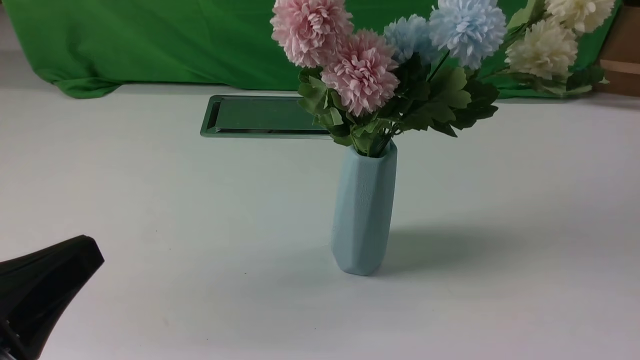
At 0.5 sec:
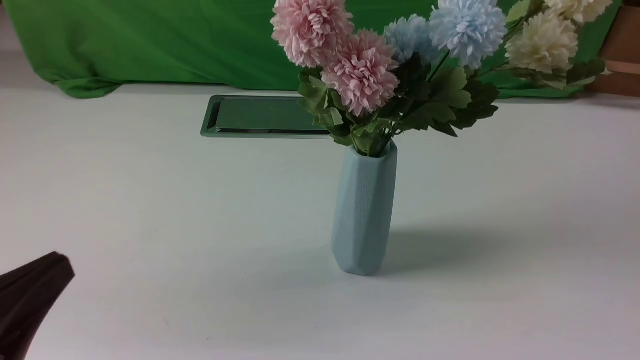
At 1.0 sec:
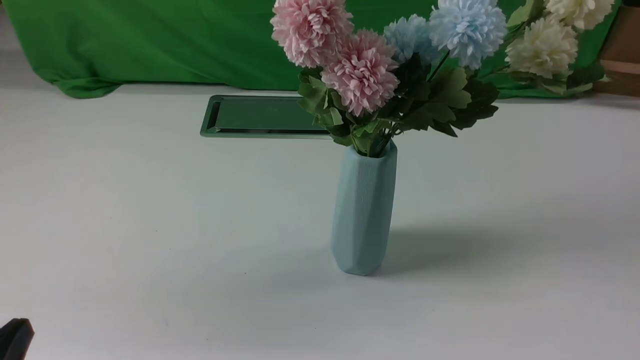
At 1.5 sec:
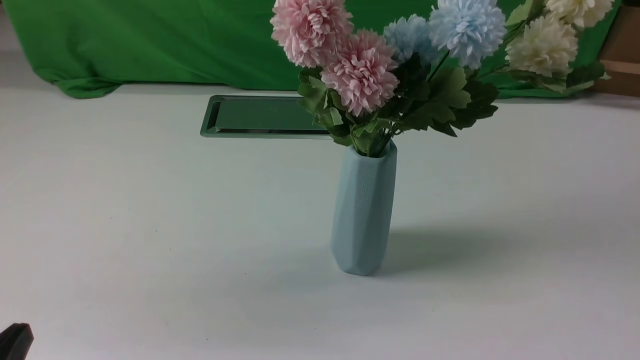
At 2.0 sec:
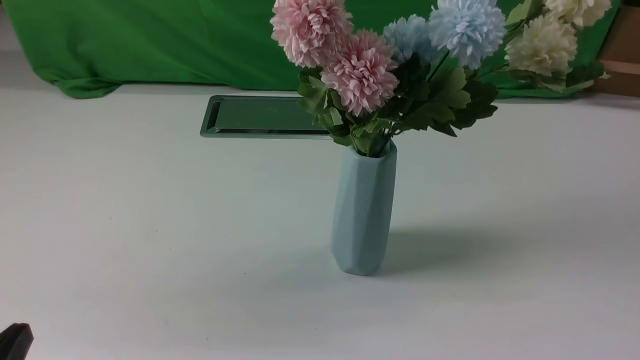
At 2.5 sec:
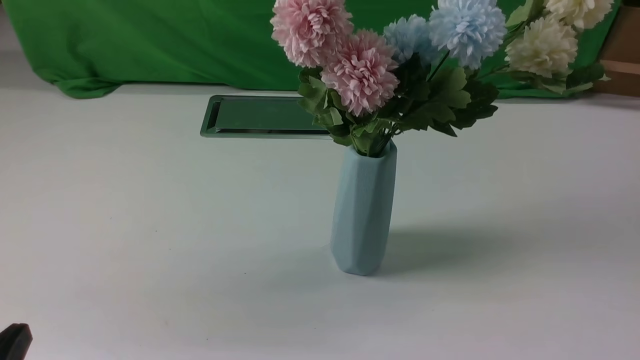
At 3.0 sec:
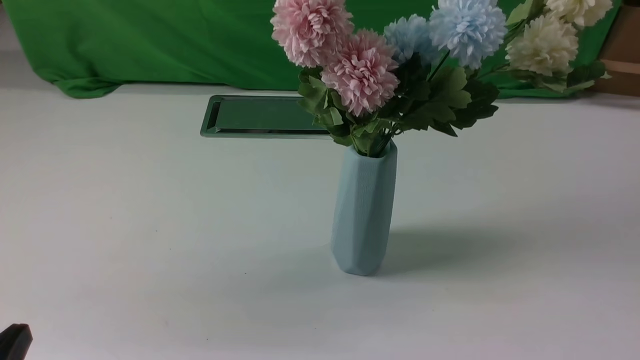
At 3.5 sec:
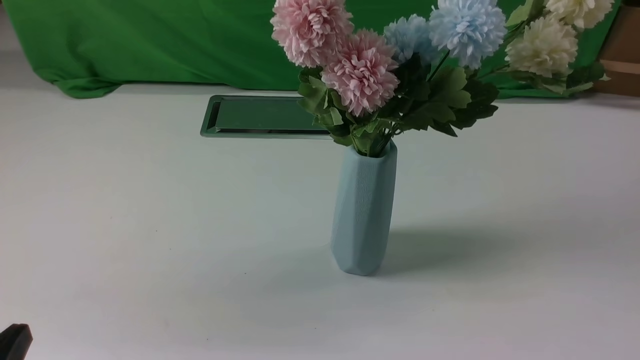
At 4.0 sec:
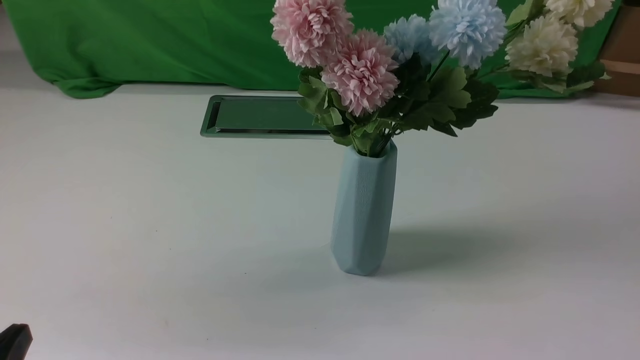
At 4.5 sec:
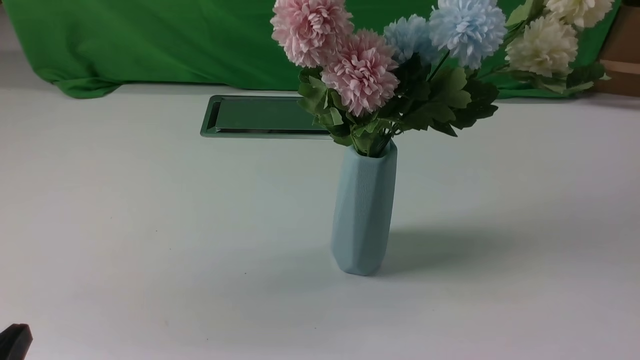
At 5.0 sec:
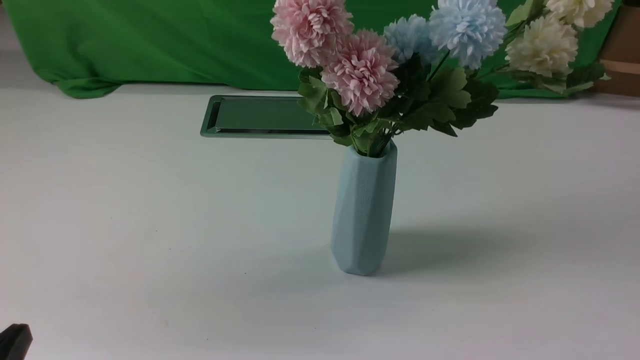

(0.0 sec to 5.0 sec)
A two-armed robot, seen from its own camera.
Task of the whole recording: insert the flowers into the vase on the white table.
0.0 sec - 2.5 sec: The left gripper goes some 10 cm downward.

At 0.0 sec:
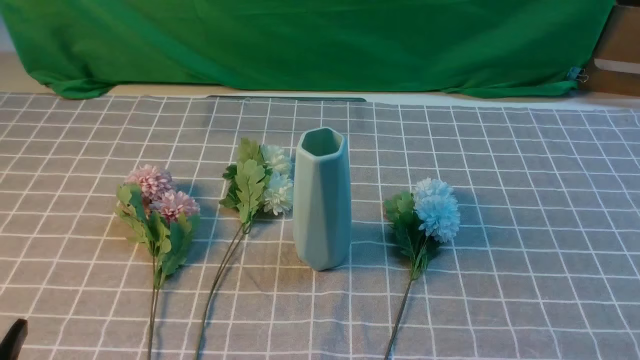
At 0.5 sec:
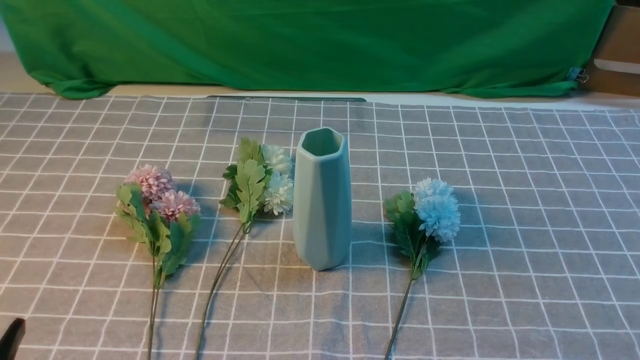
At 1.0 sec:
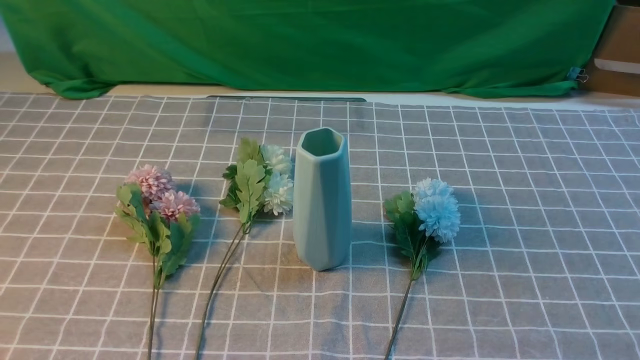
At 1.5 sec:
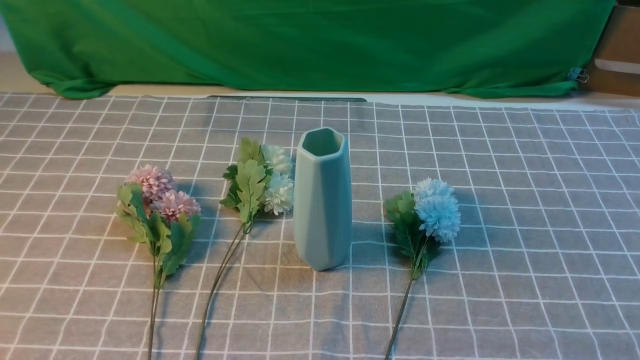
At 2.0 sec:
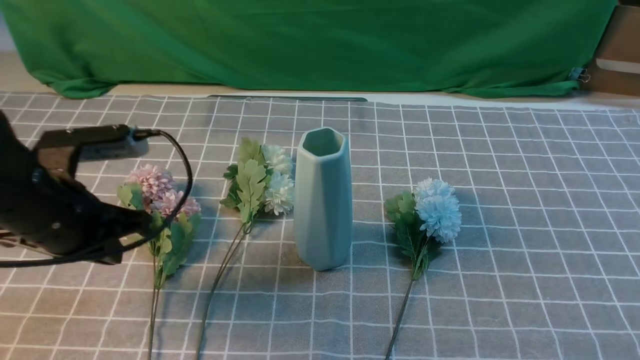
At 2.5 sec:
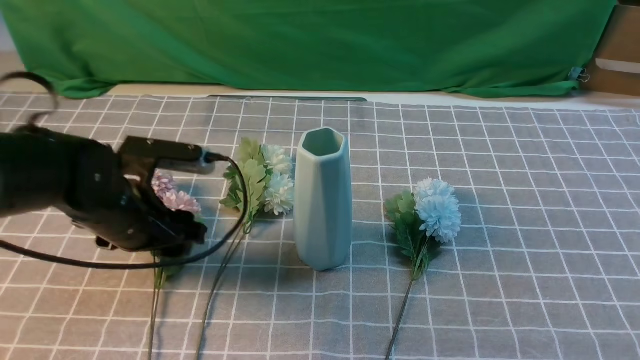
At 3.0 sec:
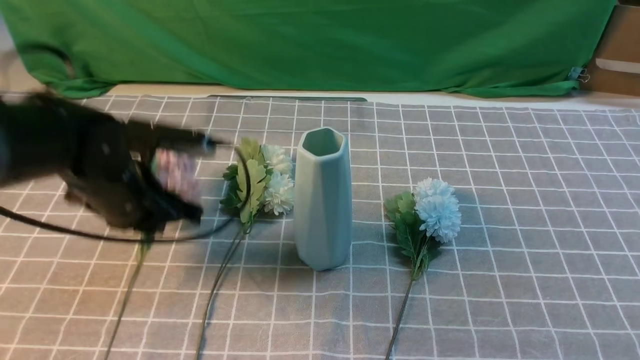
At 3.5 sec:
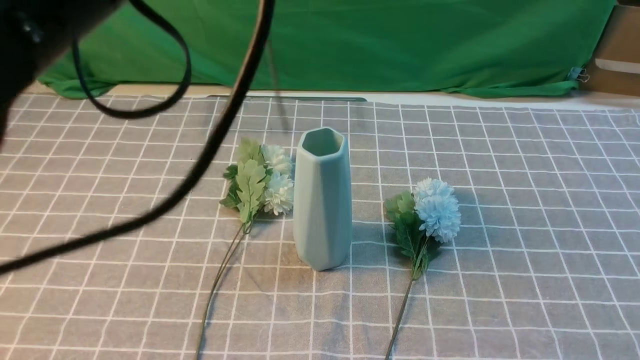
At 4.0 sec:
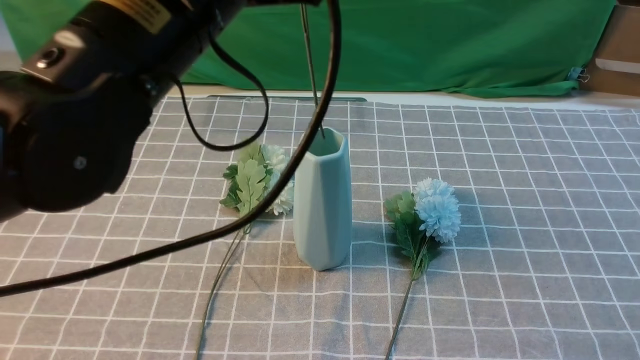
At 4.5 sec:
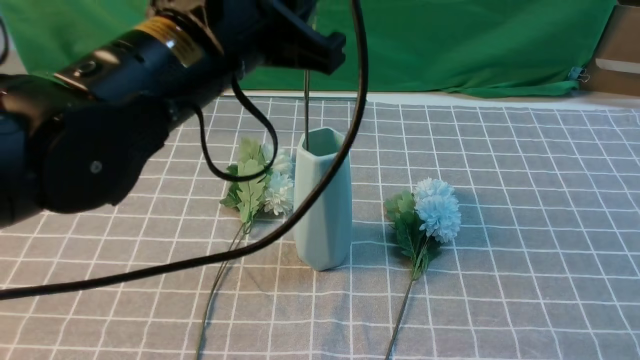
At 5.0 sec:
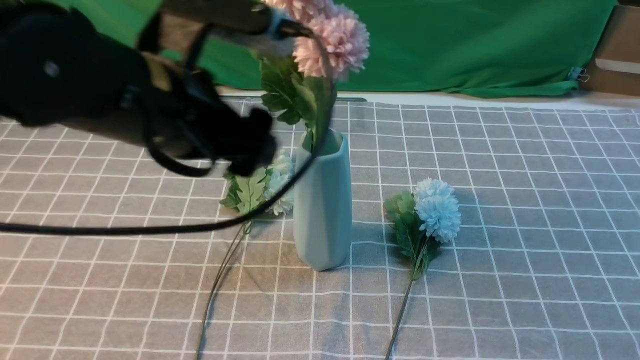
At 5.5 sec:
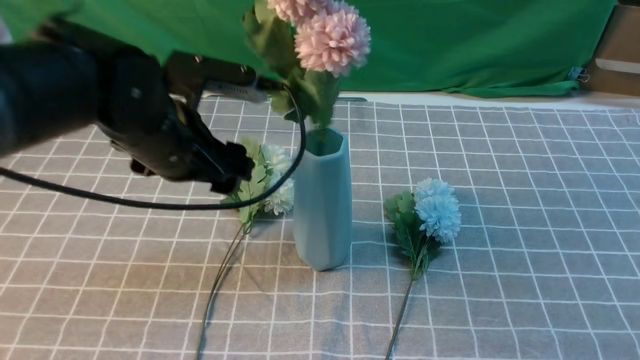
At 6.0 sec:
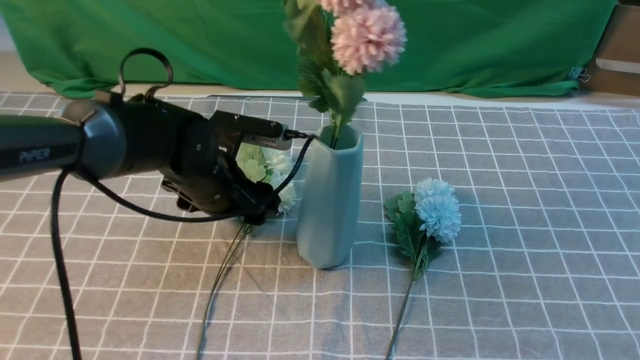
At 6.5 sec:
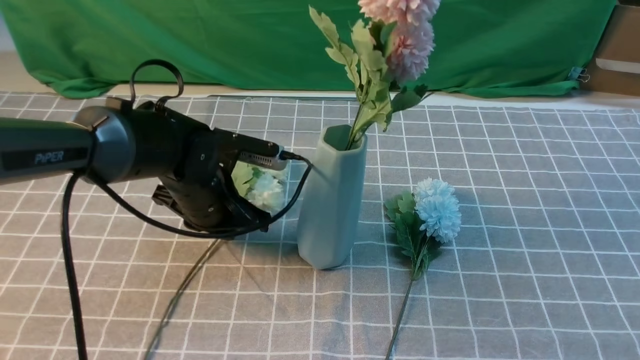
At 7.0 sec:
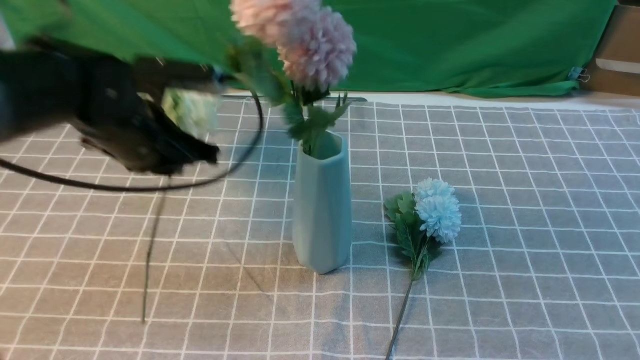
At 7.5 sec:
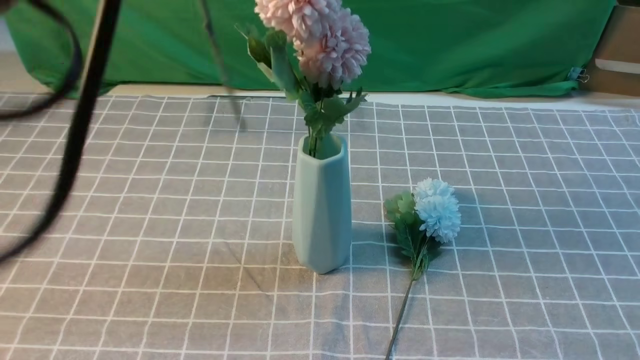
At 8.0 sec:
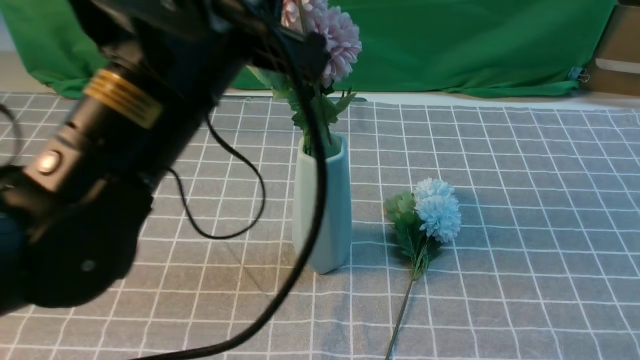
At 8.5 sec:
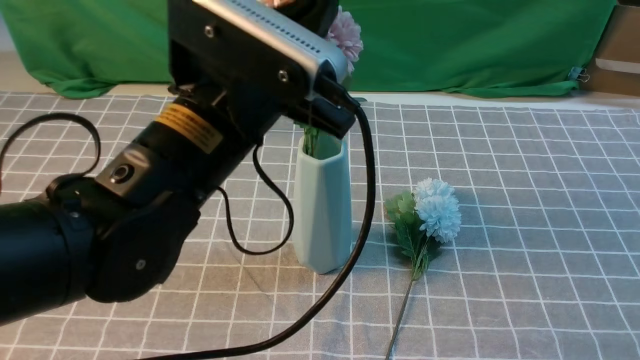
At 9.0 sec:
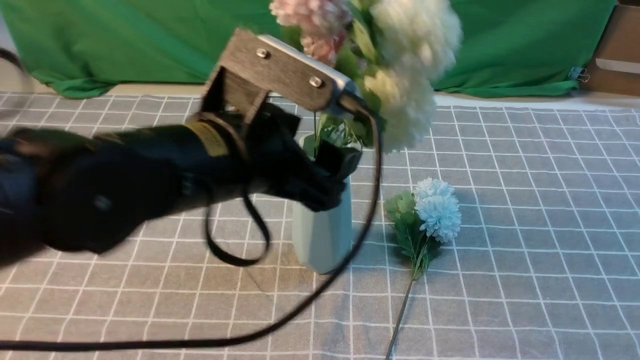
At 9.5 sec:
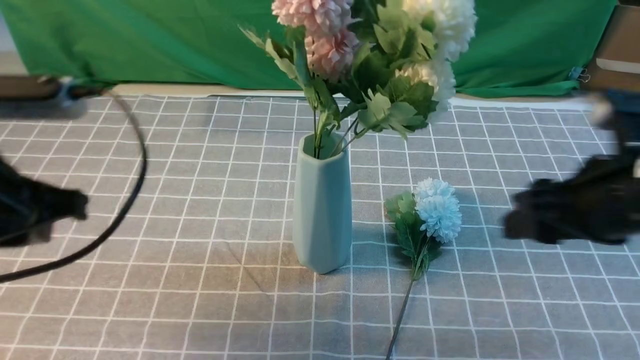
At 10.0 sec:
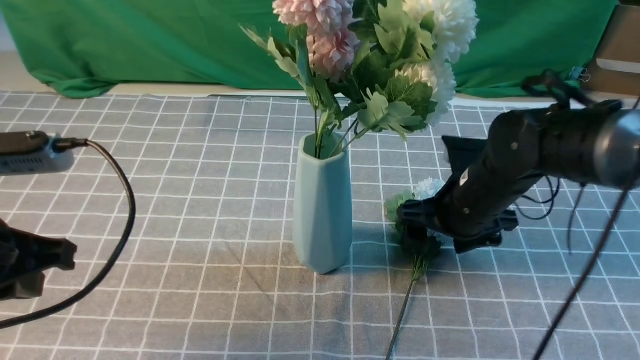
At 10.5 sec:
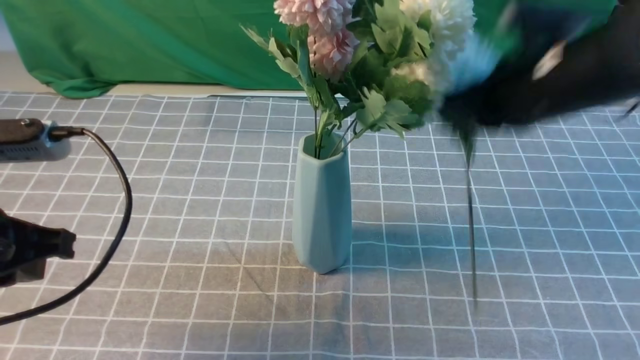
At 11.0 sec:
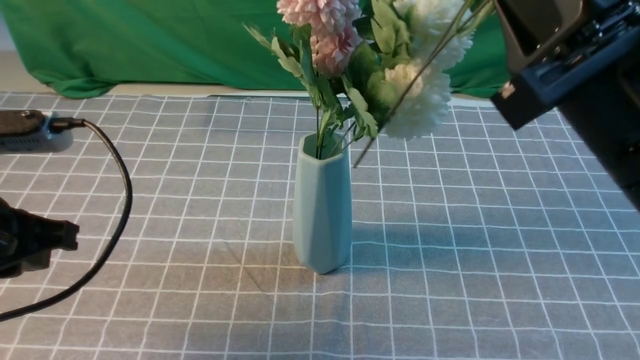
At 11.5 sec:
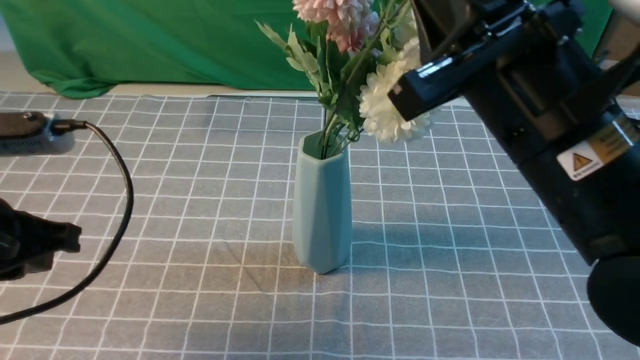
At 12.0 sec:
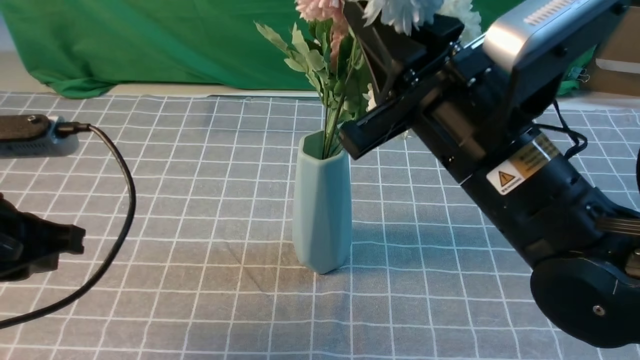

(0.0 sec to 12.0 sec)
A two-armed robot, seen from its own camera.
Task of the whole recording: insert the flowers into the vase on the table with the grey tablecloth.
Step, 0.0 sec - 2.5 sec: use the left arm to grab a bunch of fresh flowers.
Step, 3.0 sec - 4.5 sec: use the left arm to insert the flowers into the vase.
Step, 5.0 sec - 6.5 sec: use the left arm to grab a bunch of fresh flowers.
Step, 7.0 sec - 9.0 sec: use the left arm to insert the flowers into the vase.
Step, 9.5 sec - 10.0 sec: use the right arm to grab a bunch of fresh flowers.
0.0 sec - 2.0 sec: The left gripper moves forward, roughly 20 cm; the right gripper shifts approximately 10 cm upward.
2.0 sec - 4.0 sec: The right gripper heads forward, covering roughly 5 cm; the left gripper moves upward and to the right, roughly 20 cm, and opens, then closes again.
4.0 sec - 6.0 sec: The left gripper shifts roughly 25 cm downward and forward, and opens its fingers.
6.0 sec - 8.0 sec: The left gripper travels upward and backward by some 25 cm, and closes up.
8.0 sec - 10.0 sec: The left gripper goes about 20 cm to the left and downward, and opens and closes again. Meanwhile the right gripper goes roughly 30 cm forward, downward and to the left, and opens its fingers.
10.0 sec - 12.0 sec: The right gripper is displaced upward and backward by some 20 cm, and closes.

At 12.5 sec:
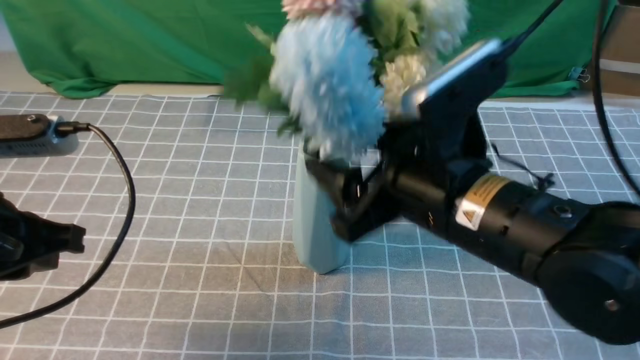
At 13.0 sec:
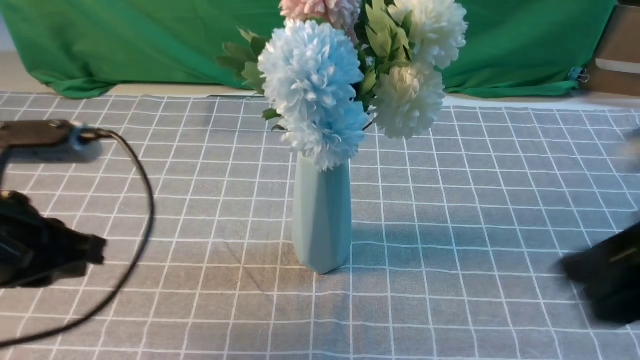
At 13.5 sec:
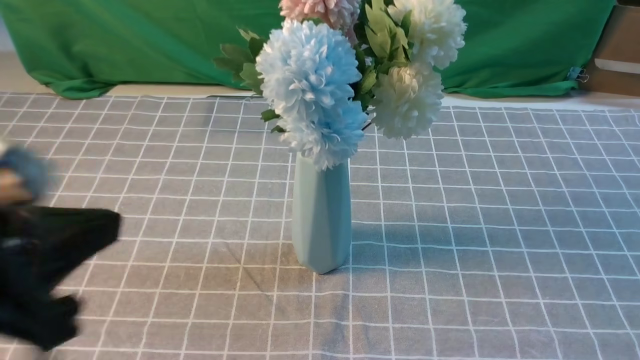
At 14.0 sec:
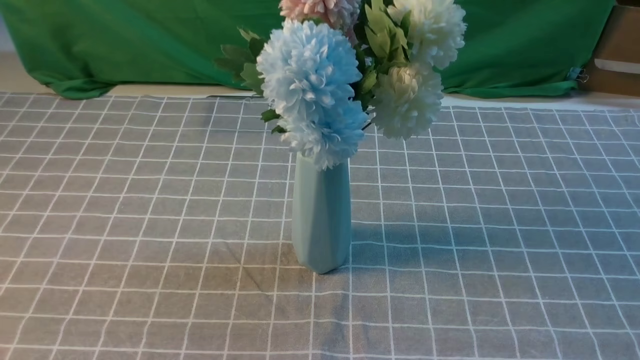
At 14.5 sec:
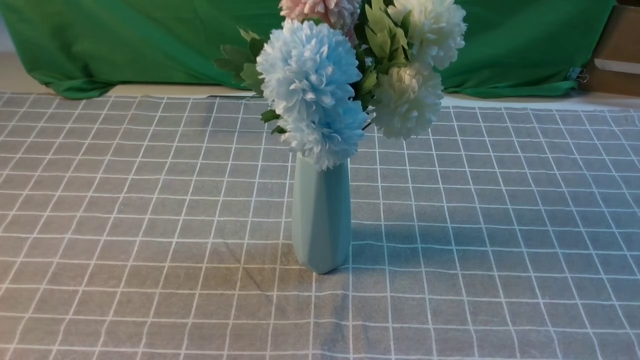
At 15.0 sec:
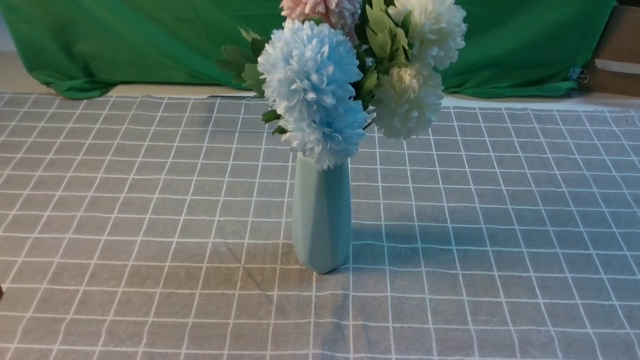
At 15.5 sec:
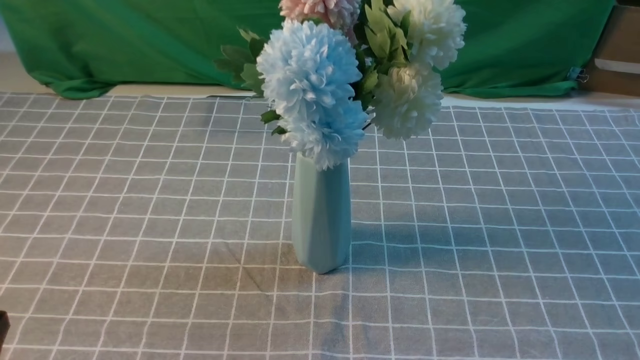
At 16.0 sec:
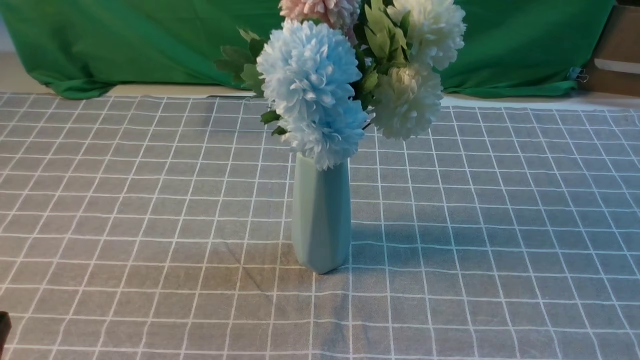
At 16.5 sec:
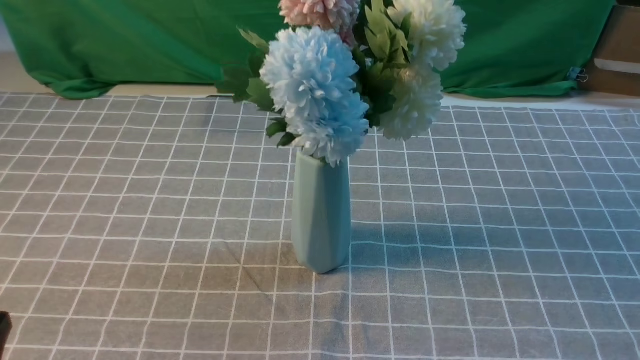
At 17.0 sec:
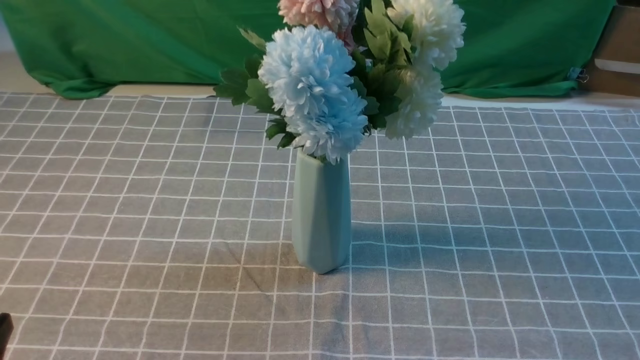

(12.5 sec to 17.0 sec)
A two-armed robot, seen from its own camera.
Task of the whole recording: insert the flowers into the vase on the table with the grey tablecloth.
12.5 sec - 14.5 sec: The left gripper travels backward by roughly 20 cm, while the right gripper heads to the right and backward, covering roughly 30 cm, and closes.
14.5 sec - 17.0 sec: The grippers both shift downward by approximately 10 cm.
